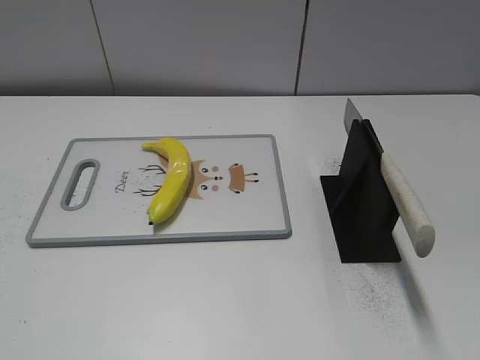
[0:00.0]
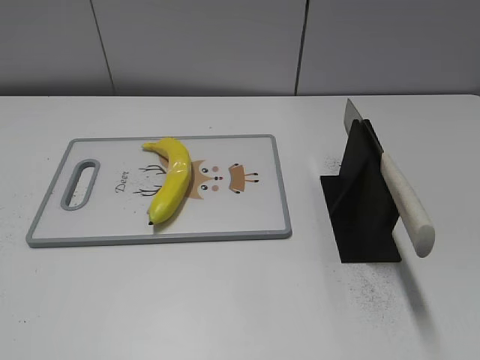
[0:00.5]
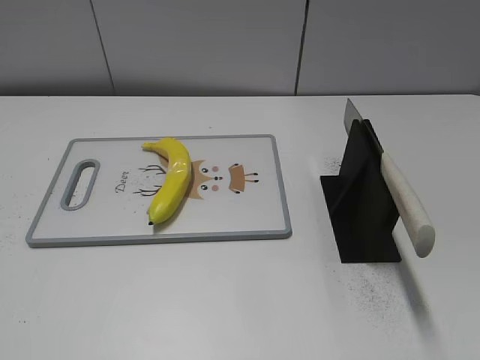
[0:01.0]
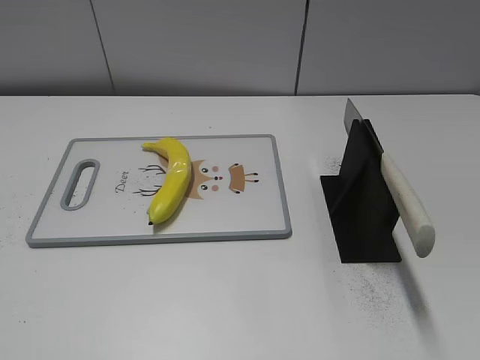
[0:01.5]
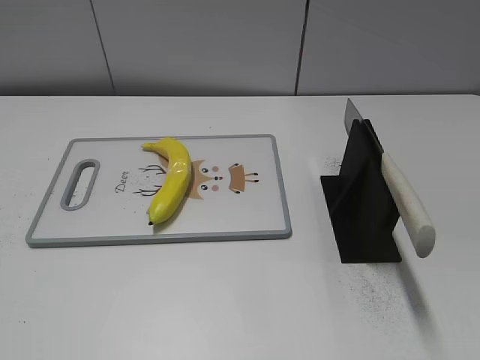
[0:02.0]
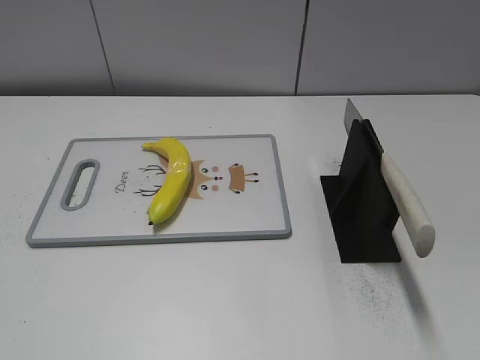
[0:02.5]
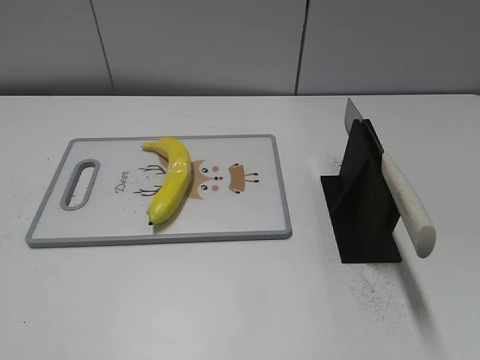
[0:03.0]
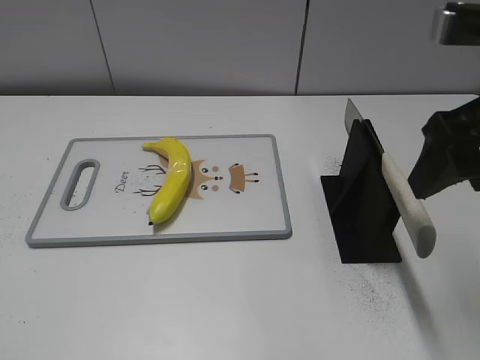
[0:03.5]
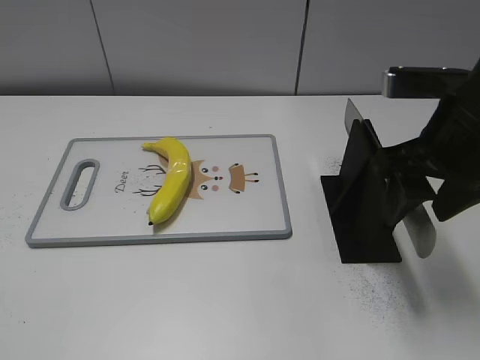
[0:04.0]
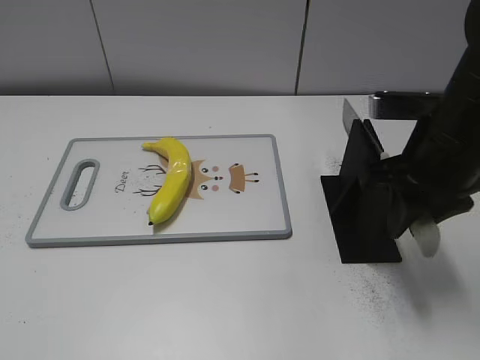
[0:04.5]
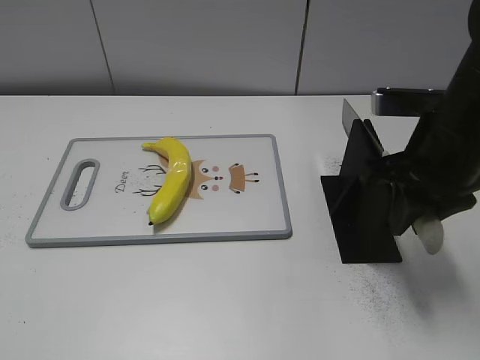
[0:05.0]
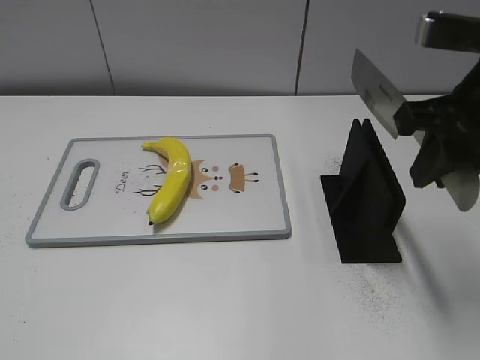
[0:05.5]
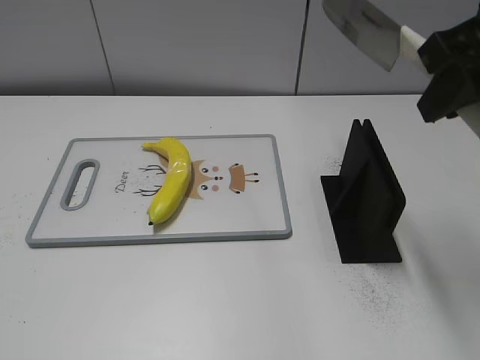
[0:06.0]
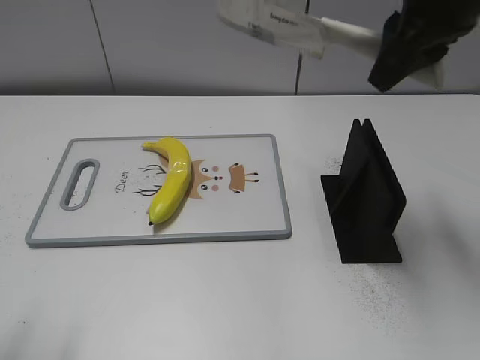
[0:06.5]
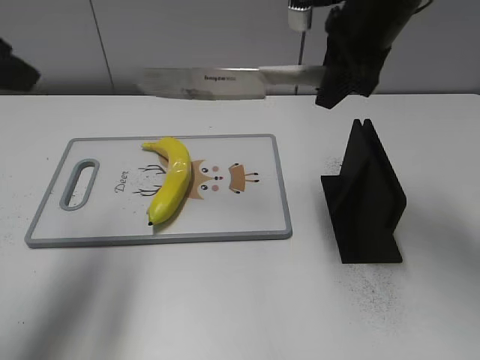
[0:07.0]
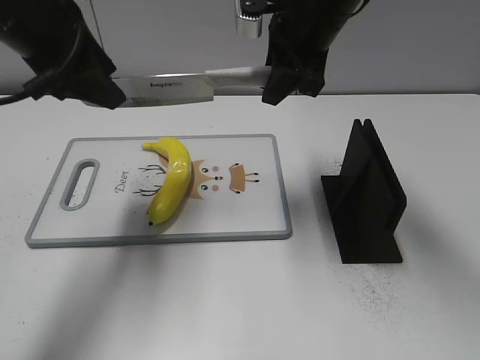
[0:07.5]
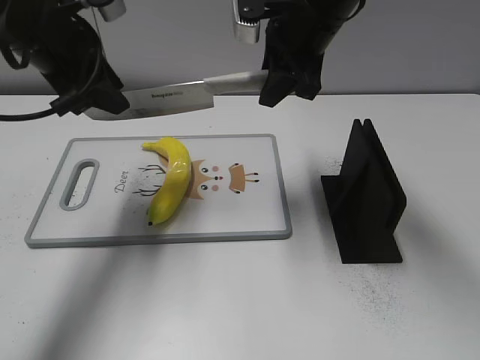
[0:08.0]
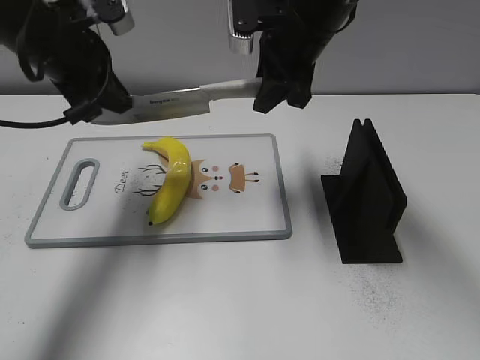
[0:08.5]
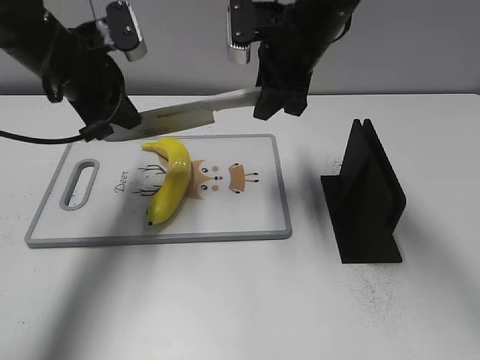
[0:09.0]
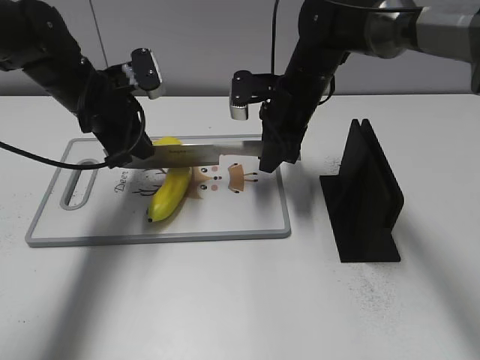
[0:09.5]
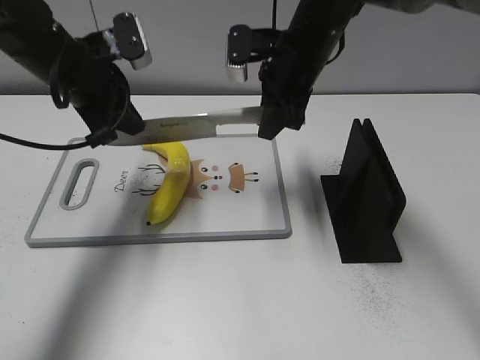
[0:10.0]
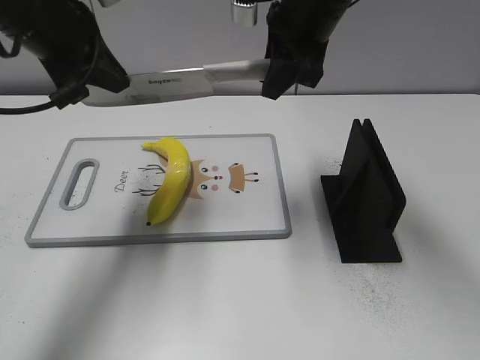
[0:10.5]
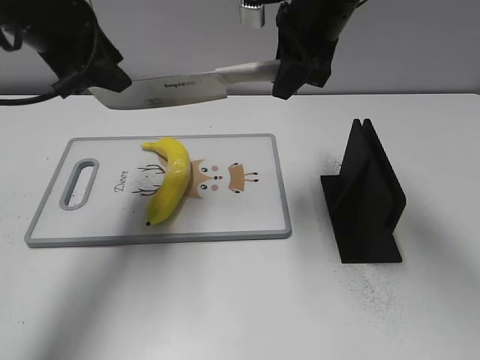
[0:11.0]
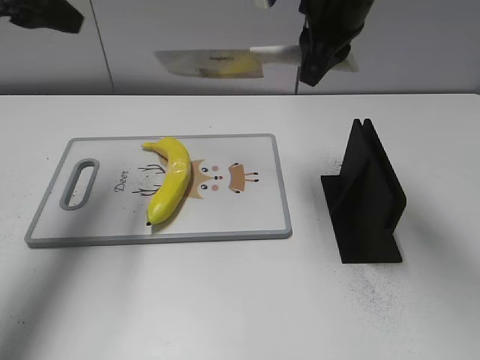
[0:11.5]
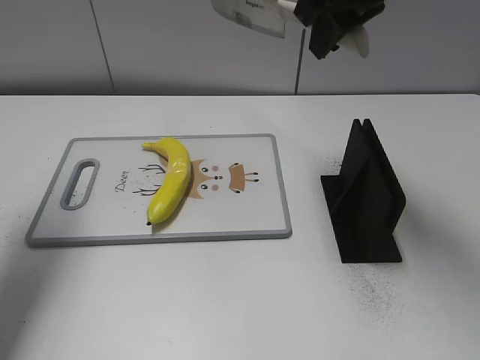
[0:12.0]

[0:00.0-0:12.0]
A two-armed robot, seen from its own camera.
Task of the whole recording: cut plastic banana.
Step, 0:00.0 to 0:05.5: Grab the knife handle with your right hand.
Step, 0:06.5 to 0:10.5: Lift the knife with your right hand.
0:02.0 to 0:04.0: The right gripper shifts some 25 cm forward.
0:04.0 to 0:06.0: The right gripper goes some 10 cm upward, and closes its fingers.
0:06.0 to 0:08.0: The left gripper heads forward, covering roughly 35 cm; the right gripper goes about 20 cm forward, to the left and downward.
0:08.0 to 0:10.0: The grippers both shift downward by some 5 cm. The left gripper closes up.
0:10.0 to 0:12.0: The right gripper moves upward, approximately 15 cm. Meanwhile the left gripper travels to the left, upward and backward by some 20 cm, and opens its fingers.

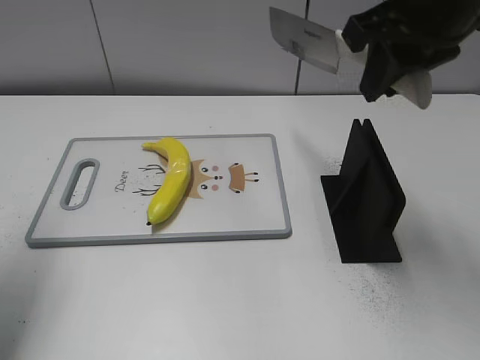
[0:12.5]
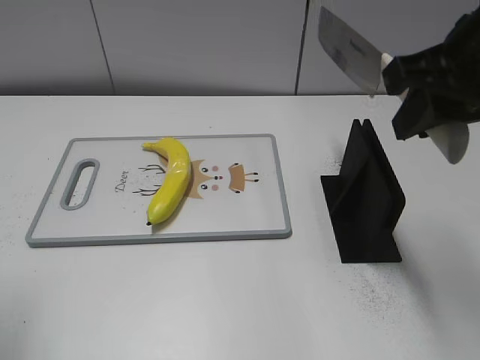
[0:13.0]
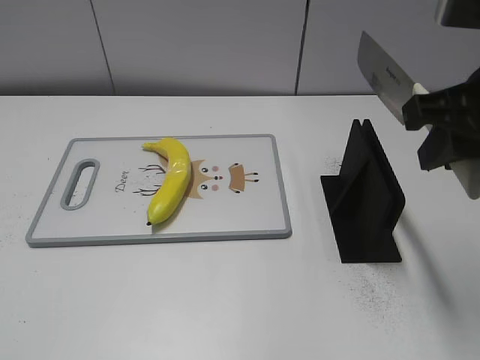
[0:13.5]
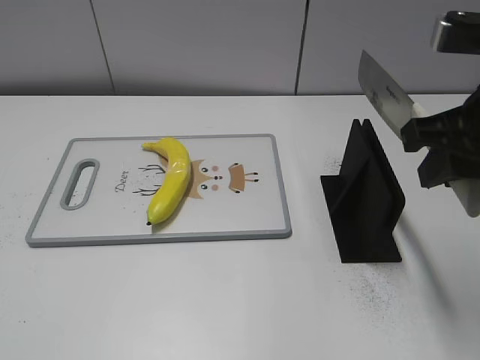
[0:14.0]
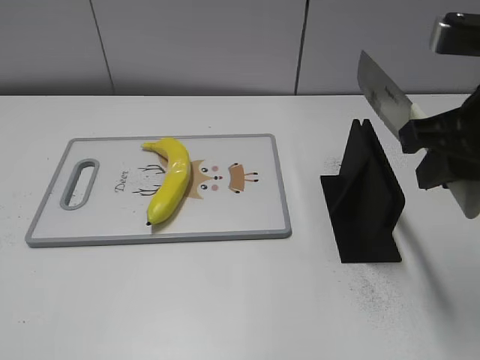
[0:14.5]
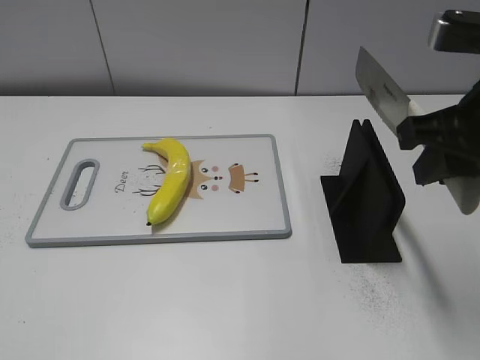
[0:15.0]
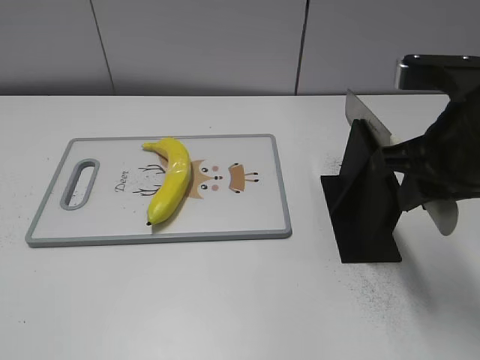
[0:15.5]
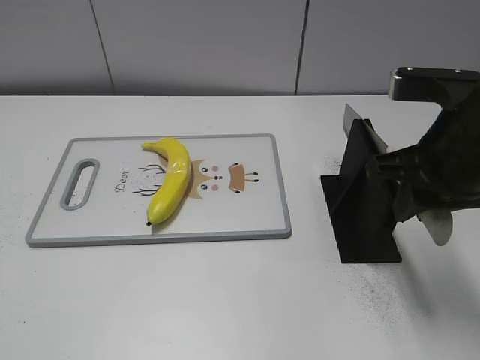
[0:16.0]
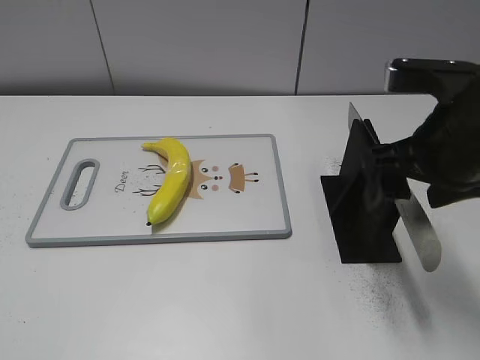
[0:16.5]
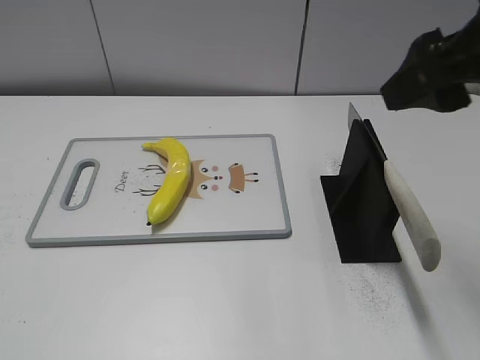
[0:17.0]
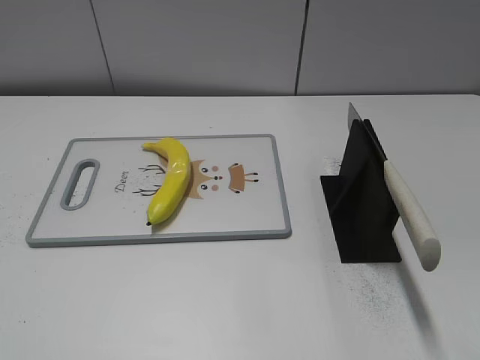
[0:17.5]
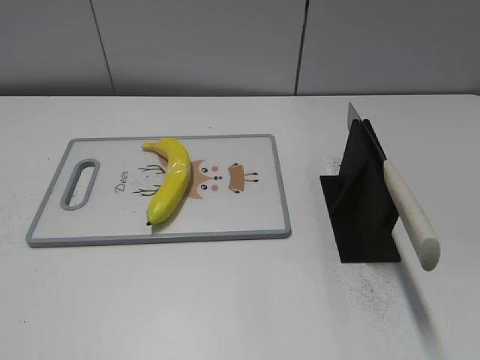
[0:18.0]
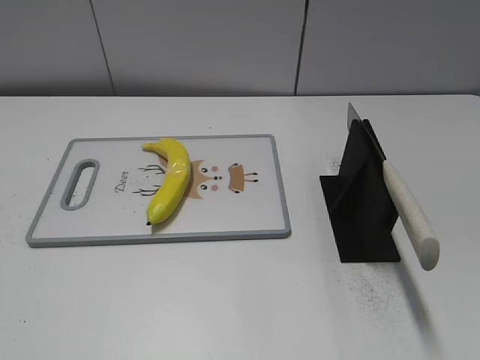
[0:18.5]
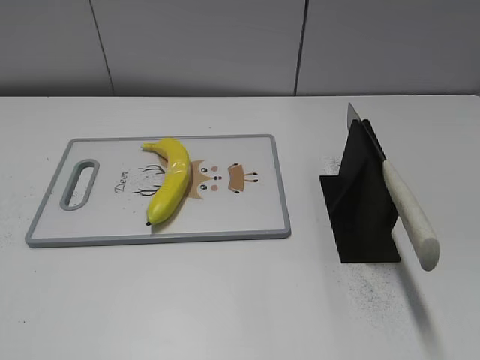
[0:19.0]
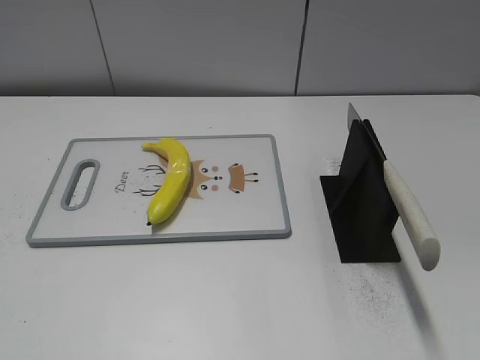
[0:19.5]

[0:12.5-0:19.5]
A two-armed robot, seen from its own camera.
Task of the whole recording: cut plastic banana.
Step, 0:13.5 to 0:19.5: Place the knife on the storage rack with your right hand.
0:12.5 to 0:14.5: The left gripper is displaced backward by about 25 cm. Meanwhile the right gripper goes about 10 cm backward and downward.
0:14.5 to 0:16.0: The right gripper moves approximately 5 cm.
0:16.0 to 0:17.5: The right gripper is displaced backward, upward and to the right by roughly 15 cm, and opens its fingers.

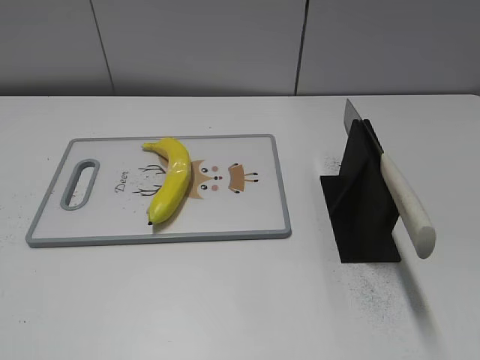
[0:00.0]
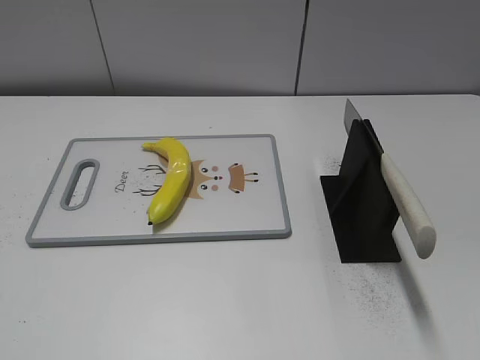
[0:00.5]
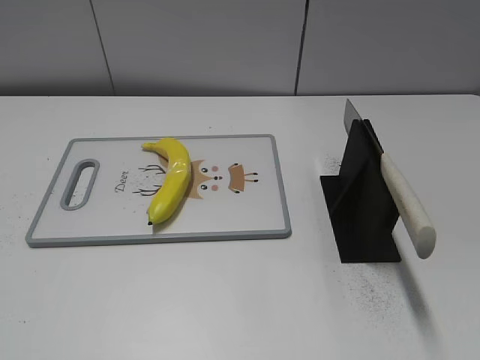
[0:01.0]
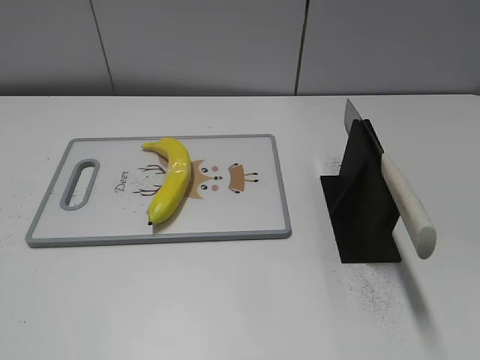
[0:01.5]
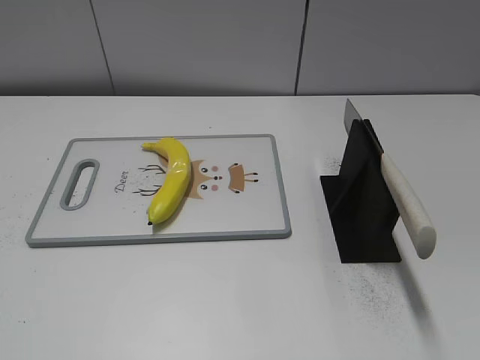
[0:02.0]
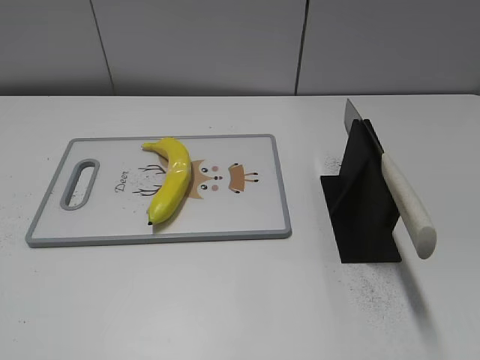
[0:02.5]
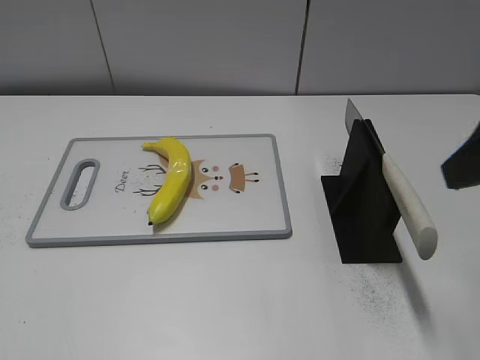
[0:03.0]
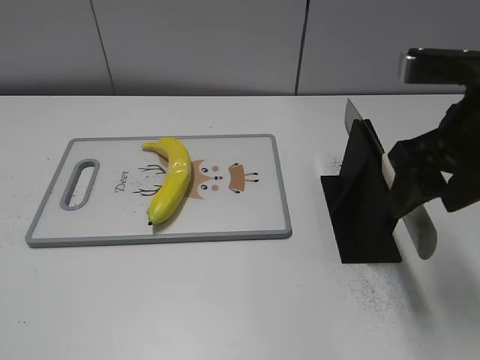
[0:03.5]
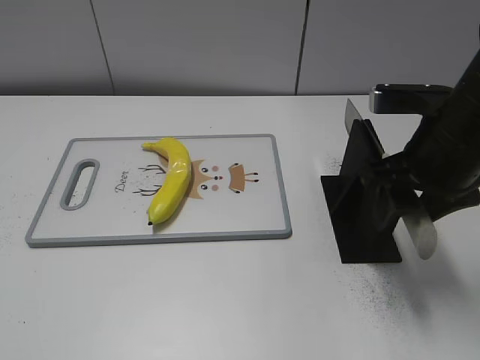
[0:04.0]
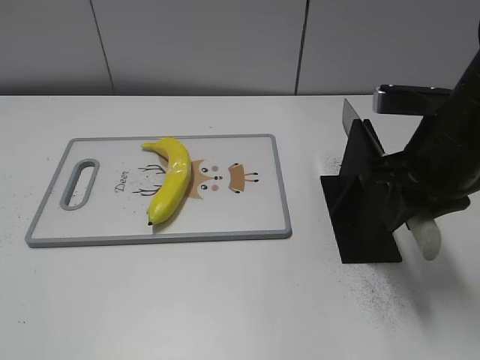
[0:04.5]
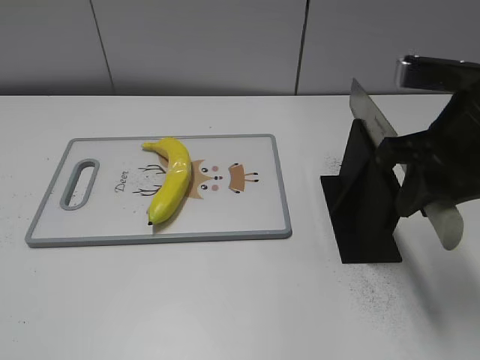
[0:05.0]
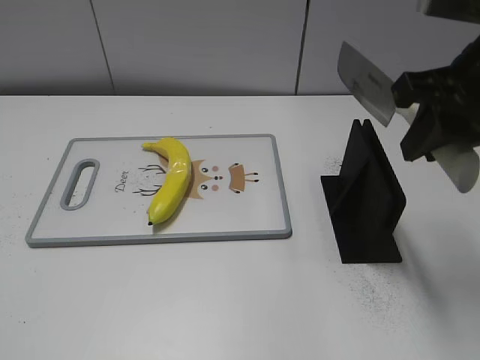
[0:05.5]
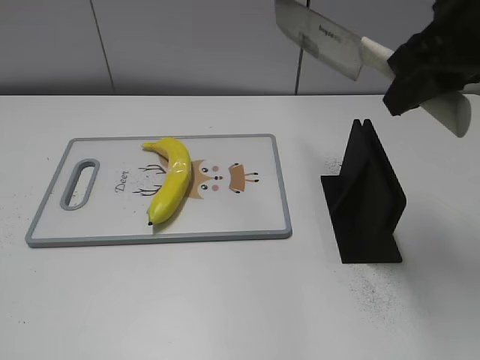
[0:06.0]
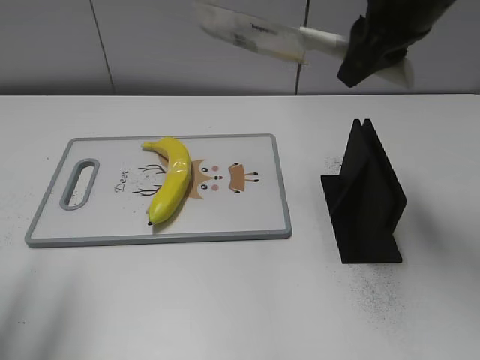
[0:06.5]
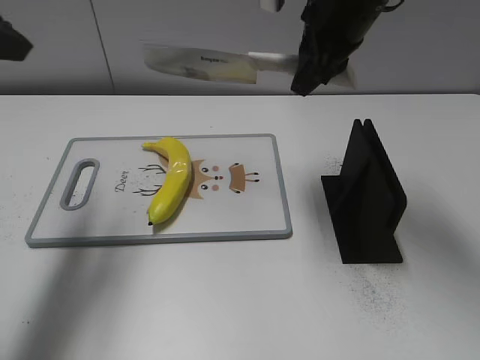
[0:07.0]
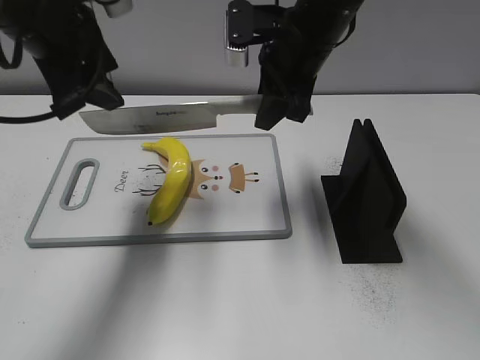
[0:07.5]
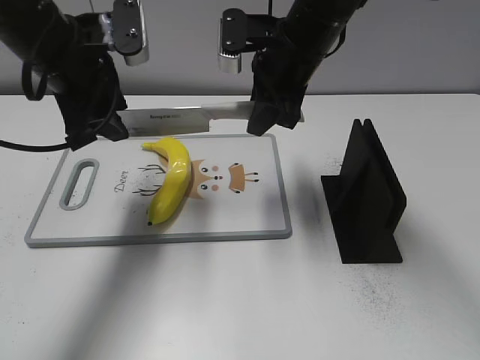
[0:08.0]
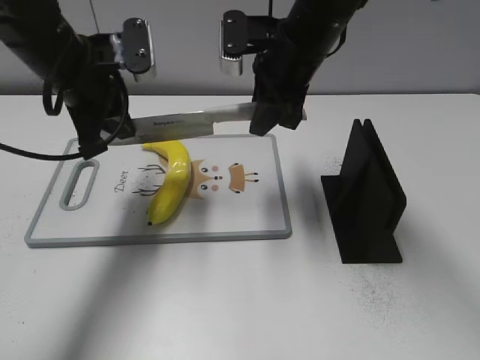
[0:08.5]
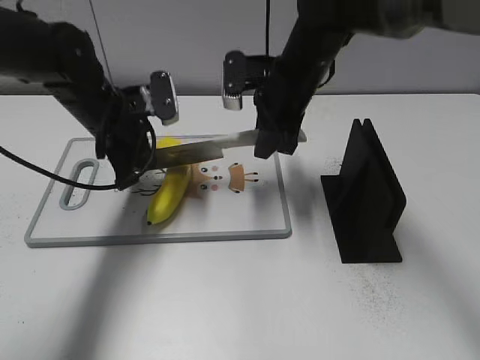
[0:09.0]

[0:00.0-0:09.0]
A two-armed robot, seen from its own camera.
Task of the whole recording: cut plastic banana.
Step, 0:00.0 to 0:05.0: Grab the knife handle with your right hand.
0:02.0 to 0:04.5: The right gripper moves forward and to the left, some 25 cm, and closes up.
0:04.5 to 0:07.0: The left gripper travels forward by approximately 30 cm. The right gripper shifts approximately 15 cm forward, to the left and upward.
0:07.0 to 0:09.0: The right gripper goes some 10 cm downward. The left gripper heads downward, forward and to the right, covering approximately 25 cm, and closes.
